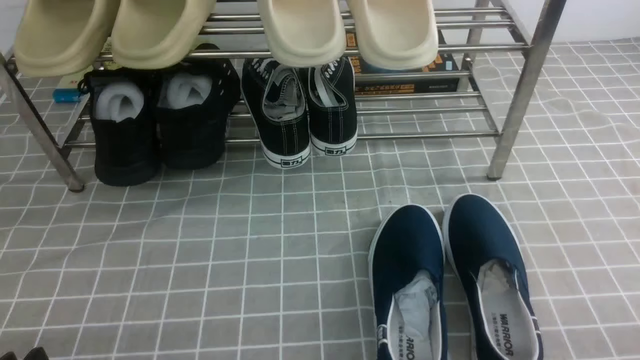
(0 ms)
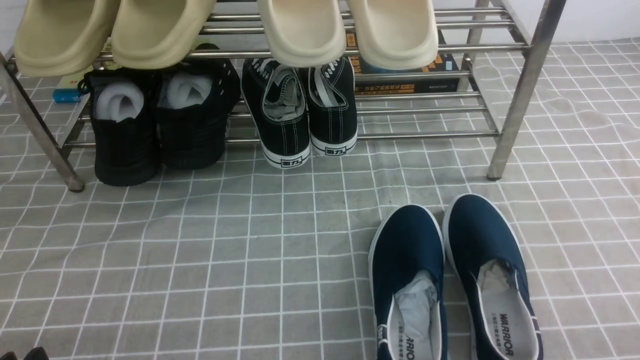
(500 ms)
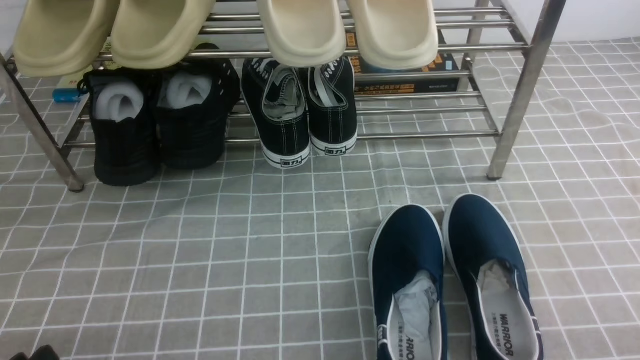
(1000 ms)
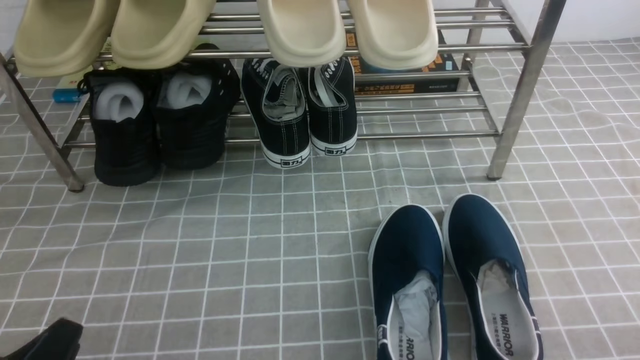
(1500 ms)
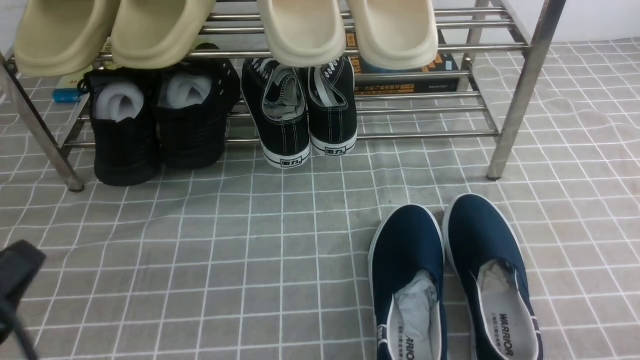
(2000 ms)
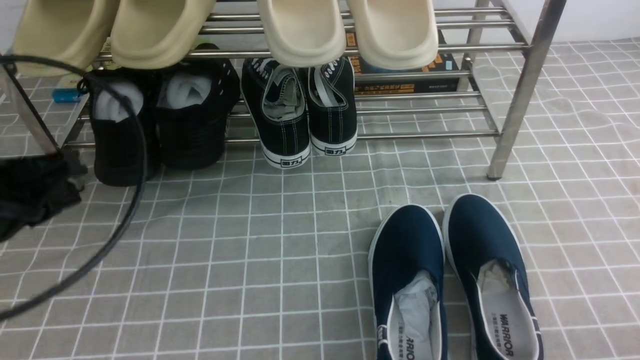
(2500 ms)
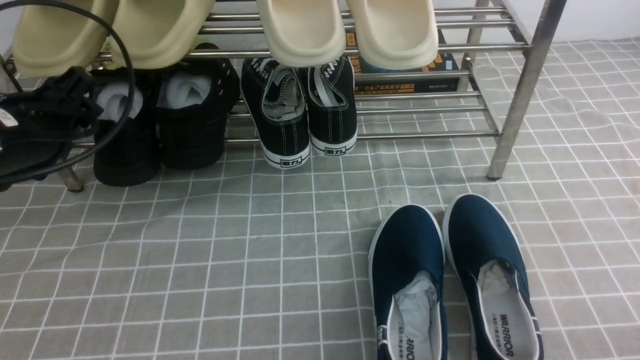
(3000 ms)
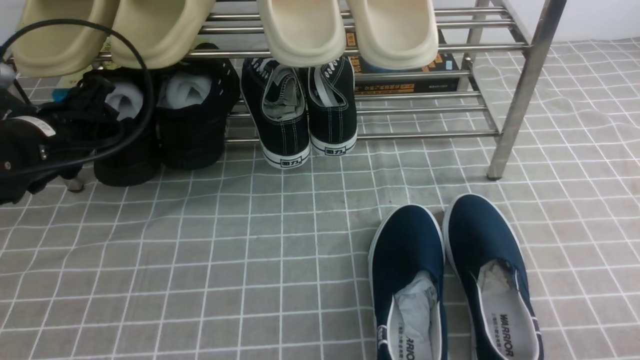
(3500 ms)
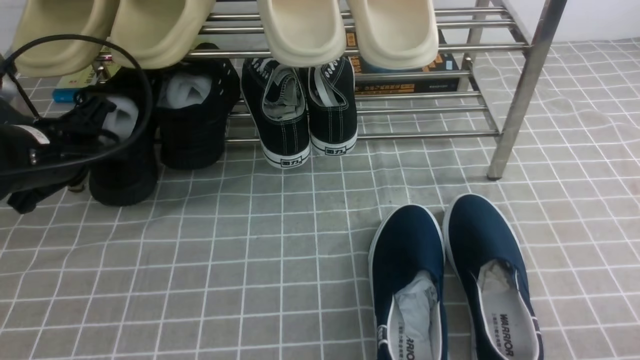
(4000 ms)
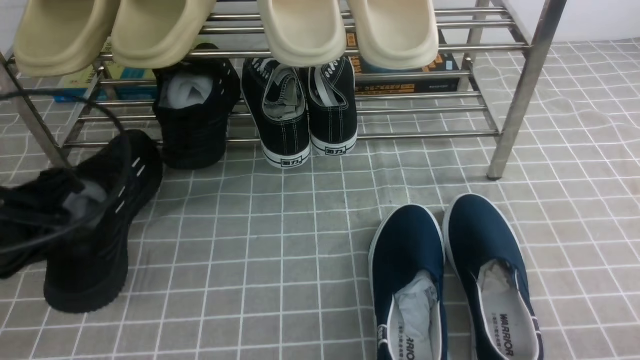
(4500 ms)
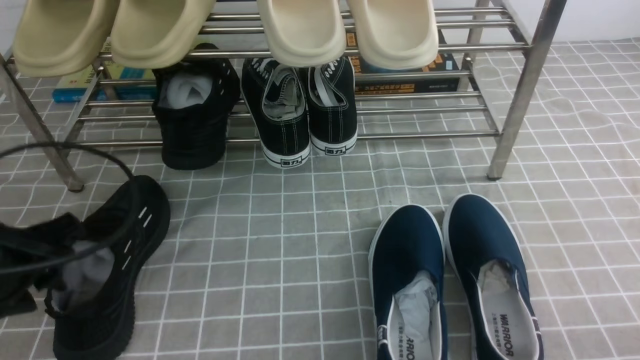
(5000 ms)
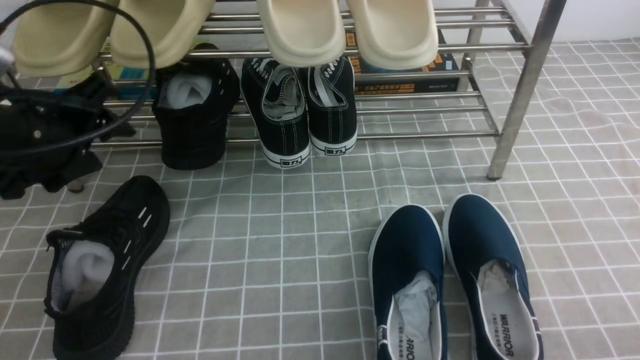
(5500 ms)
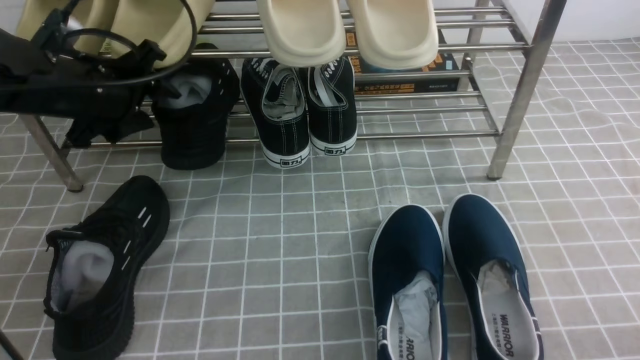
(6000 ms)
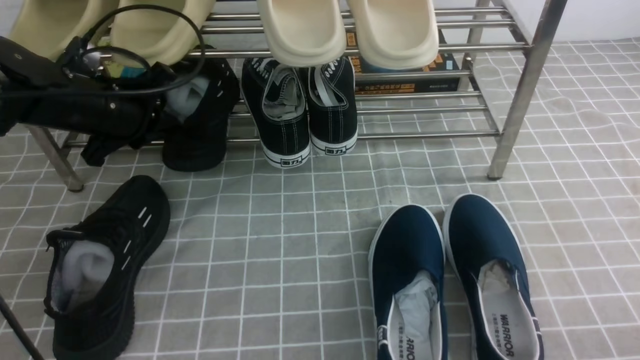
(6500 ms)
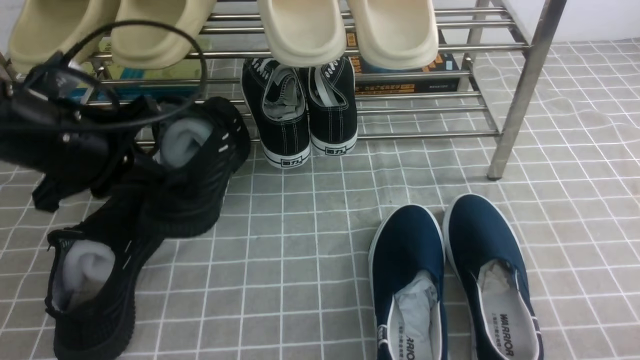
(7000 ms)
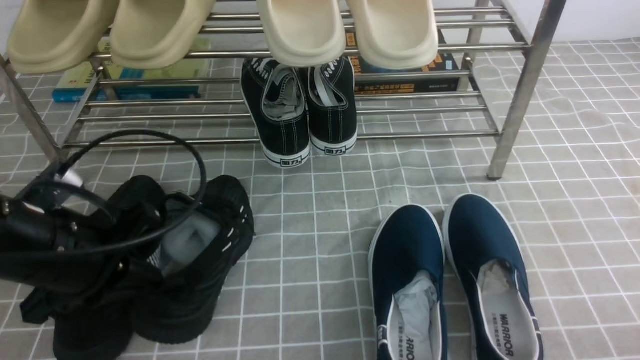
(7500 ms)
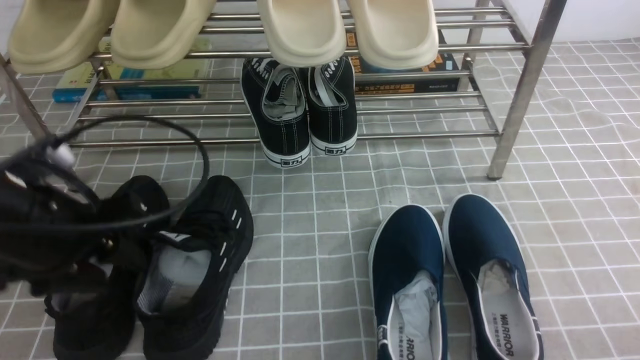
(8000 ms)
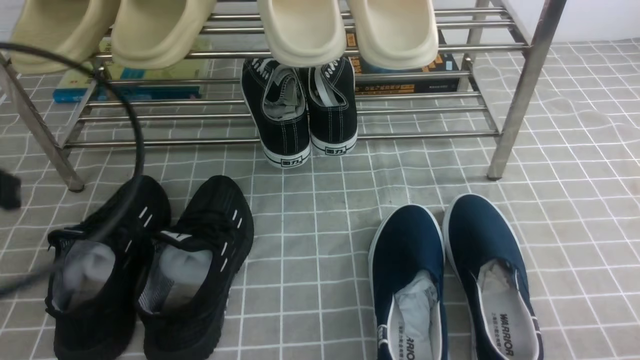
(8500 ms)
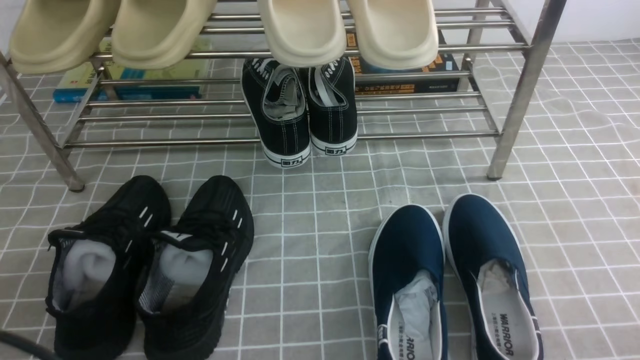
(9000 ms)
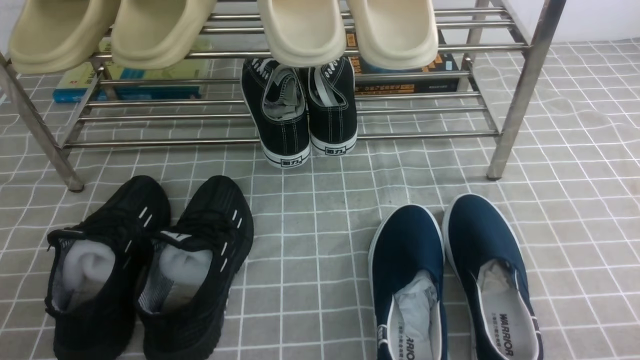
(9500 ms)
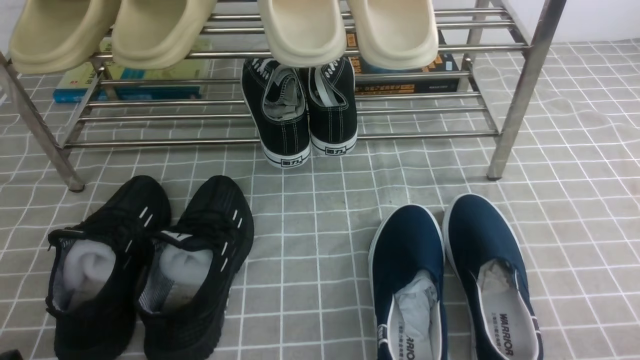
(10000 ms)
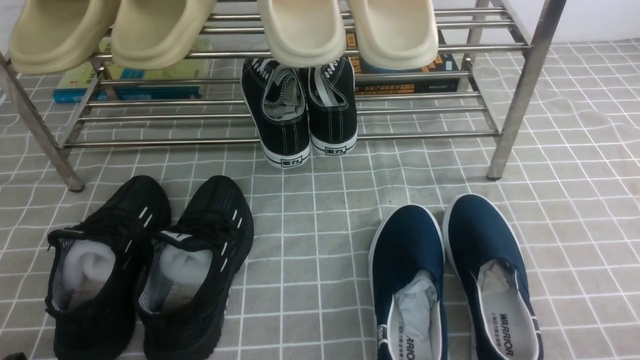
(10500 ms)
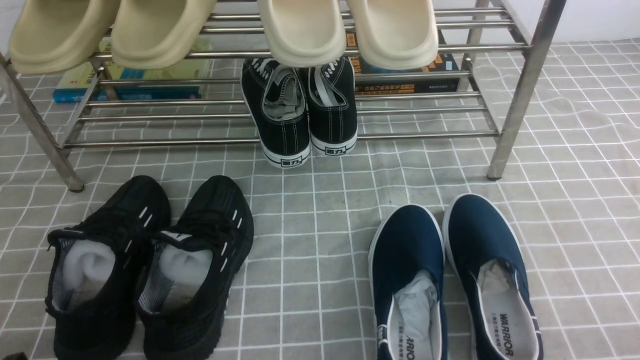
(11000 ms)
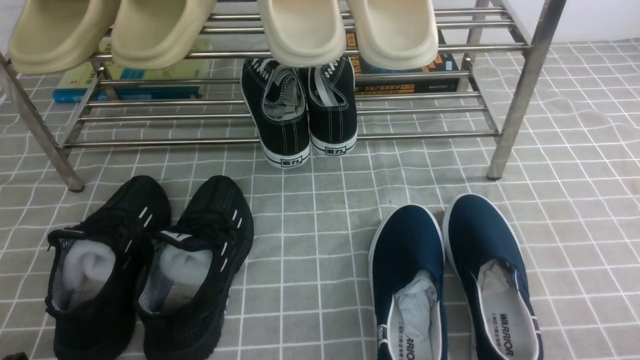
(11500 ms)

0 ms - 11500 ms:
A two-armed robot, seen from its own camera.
Step, 0 ms - 4000 ms: use the left arm to clamp a shoe on the right side of the shoe rack.
Step, 4500 ms - 5000 ms: Use your left arm to remove the clamped shoe from the shoe rack and put it down.
Step, 5500 ms - 6500 ms: use the left arm to clamp a shoe on the left side of the shoe rack.
Step, 7000 ms - 8000 ms: Use your left arm to remove the clamped shoe from the shoe rack and put it down.
0 ms - 2000 ms: The left gripper travels upward by approximately 10 cm, and closes up.
2000 ms - 4000 ms: The left gripper goes some 20 cm forward, and opens and closes again.
4000 ms - 6000 ms: The left gripper goes some 5 cm forward, and opens up.
6000 ms - 7500 ms: The left gripper moves backward, some 15 cm, and closes its fingers.
7500 ms - 9500 ms: The left gripper is displaced backward by some 20 cm, and opens, then closes again.
